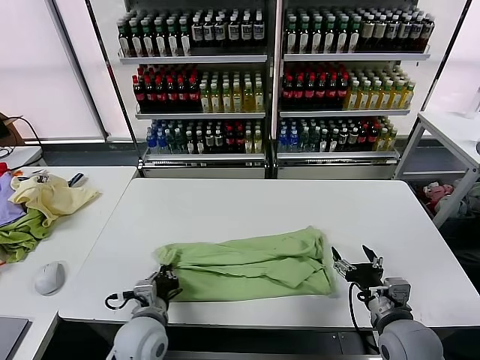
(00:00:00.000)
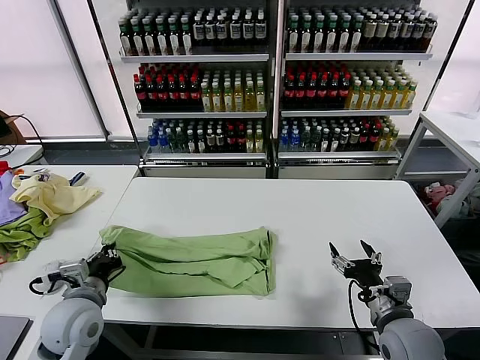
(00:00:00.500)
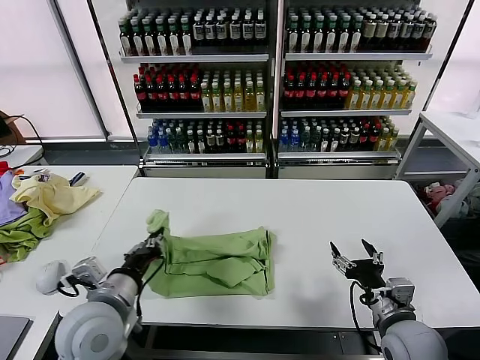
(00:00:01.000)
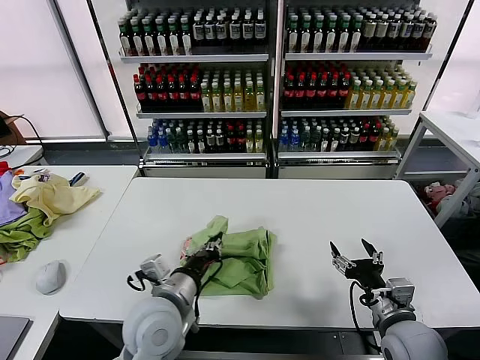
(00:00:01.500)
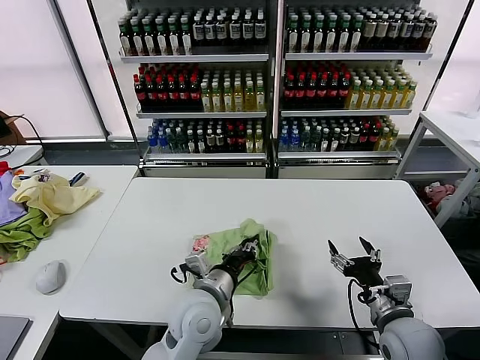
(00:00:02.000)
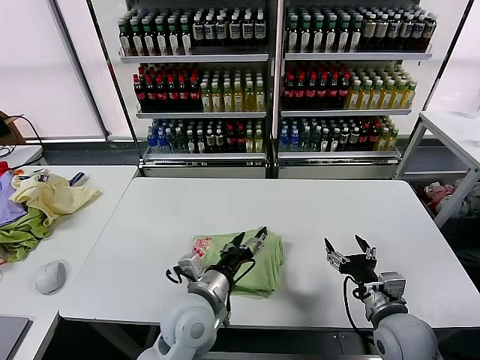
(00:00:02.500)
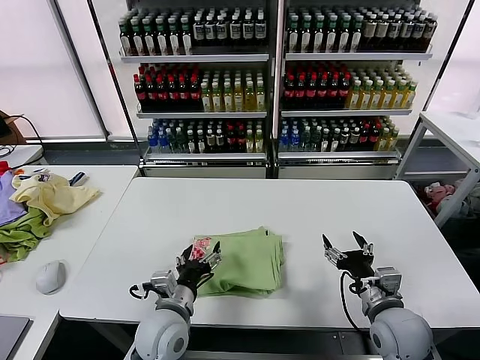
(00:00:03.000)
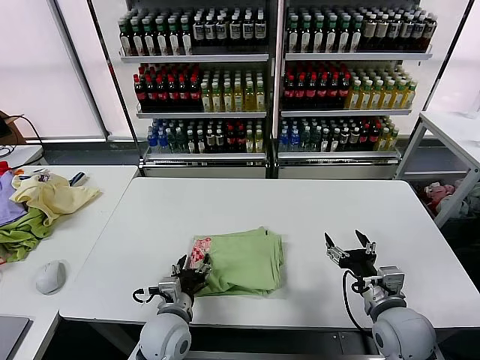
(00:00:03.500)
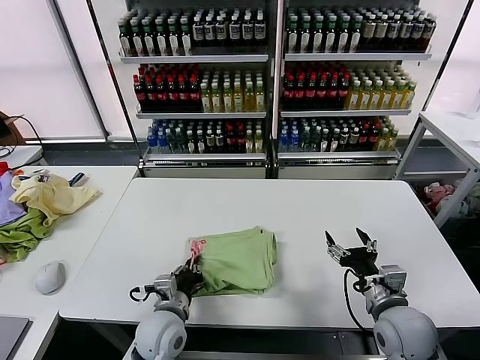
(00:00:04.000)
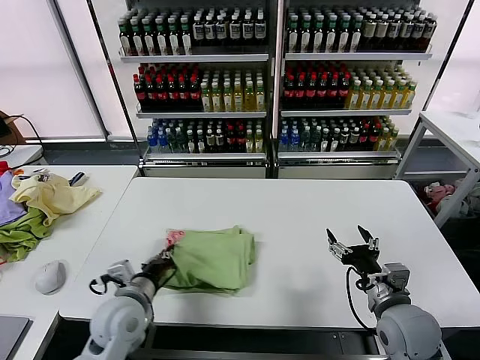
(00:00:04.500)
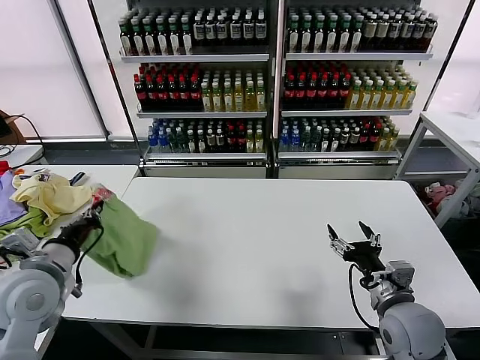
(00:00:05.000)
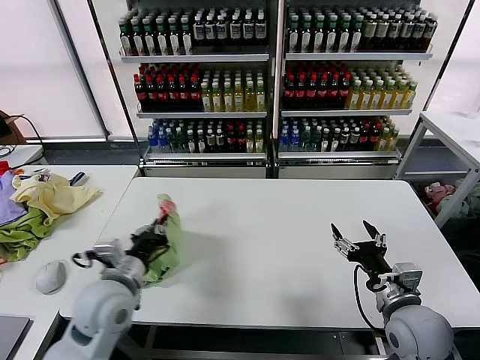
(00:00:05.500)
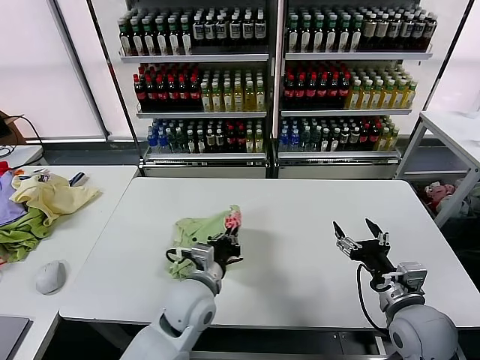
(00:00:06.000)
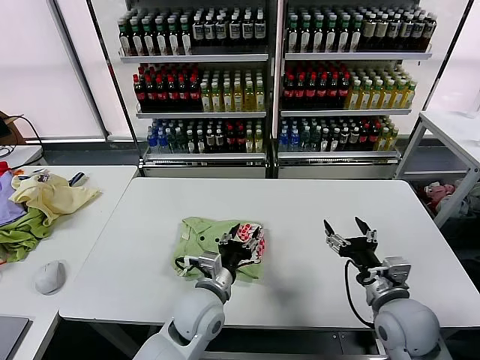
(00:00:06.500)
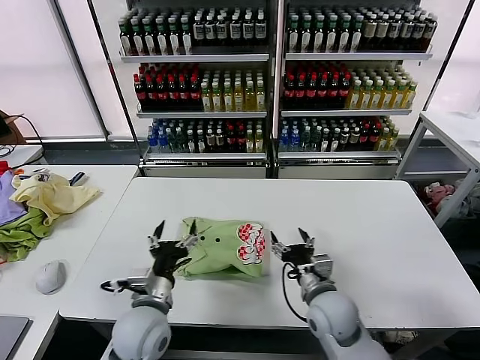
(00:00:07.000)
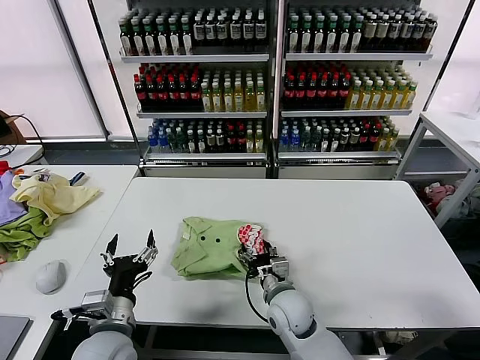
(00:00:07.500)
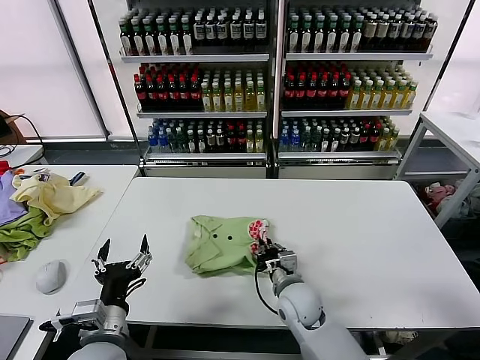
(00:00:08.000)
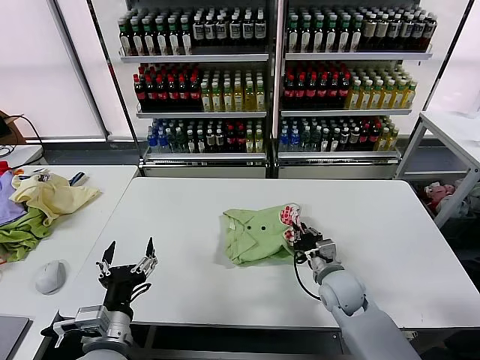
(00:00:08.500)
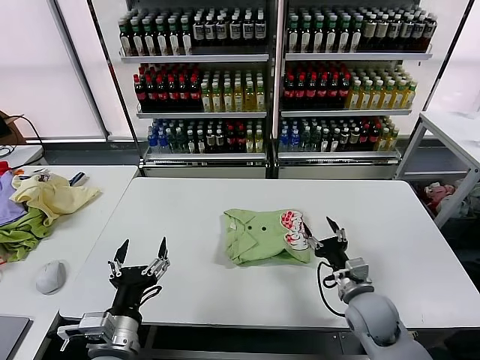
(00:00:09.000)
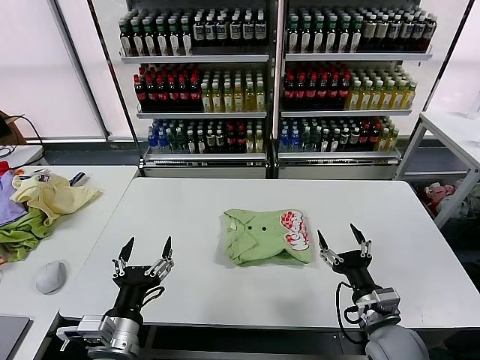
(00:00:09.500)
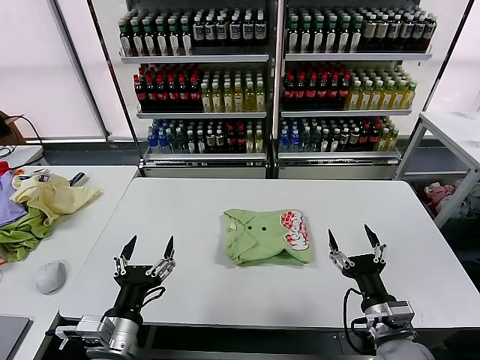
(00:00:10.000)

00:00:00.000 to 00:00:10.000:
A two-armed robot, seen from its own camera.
Task of the whole recording: fold and organize the clothes.
Step, 00:00:00.500 to 00:00:02.000: use the left gripper to drag the left edge of the fabric to the left and folds it over the right edge.
Step, 00:00:02.500 to 00:00:06.000: Flip the folded clothes over with left gripper.
Step, 00:00:06.500 to 00:00:08.500: Drag the clothes to the center of the table.
00:00:00.000 to 00:00:02.000: The left gripper heads to the right and upward, covering approximately 15 cm.
00:00:02.000 to 00:00:04.000: The left gripper is displaced downward and to the left by approximately 10 cm, and opens and closes again.
00:00:04.000 to 00:00:06.000: The left gripper is displaced upward by about 5 cm, and goes to the left and returns, roughly 20 cm each way.
00:00:06.000 to 00:00:08.000: The left gripper is displaced to the left and backward by about 15 cm, and opens its fingers, while the right gripper travels to the left, downward and forward by roughly 25 cm, and closes up.
00:00:08.000 to 00:00:10.000: The right gripper goes about 20 cm to the right, backward and upward, and opens.
